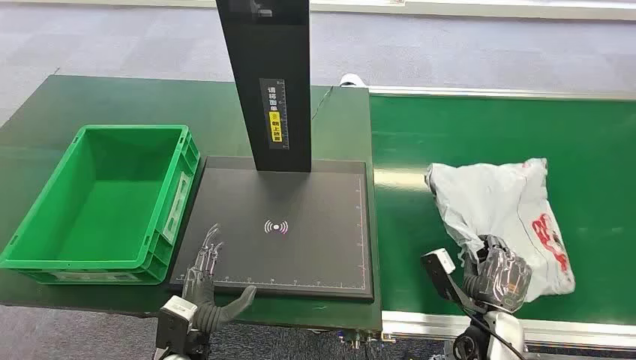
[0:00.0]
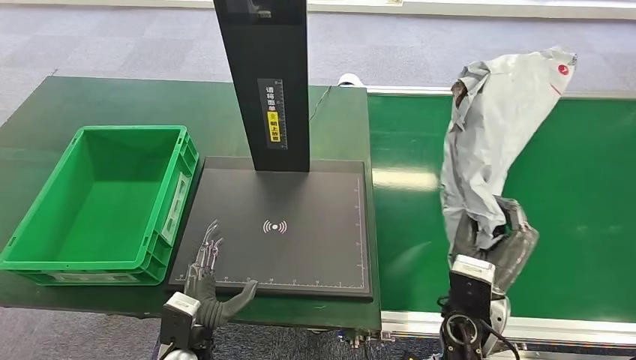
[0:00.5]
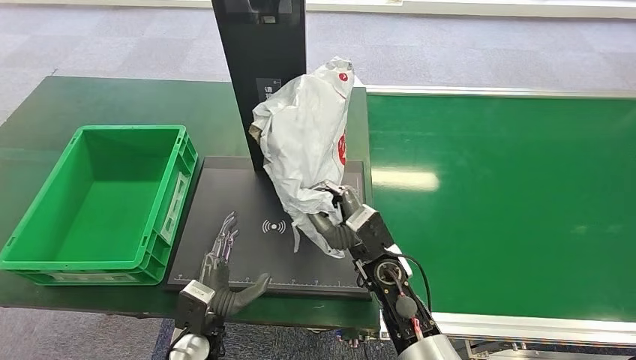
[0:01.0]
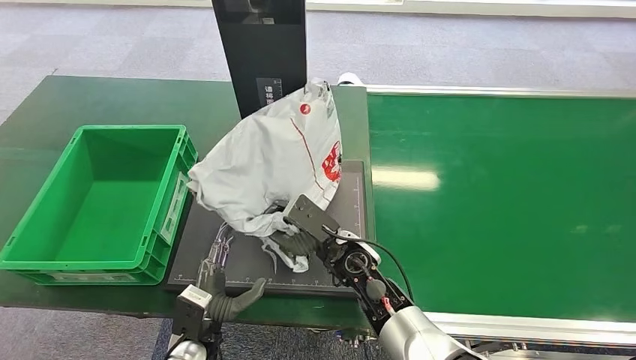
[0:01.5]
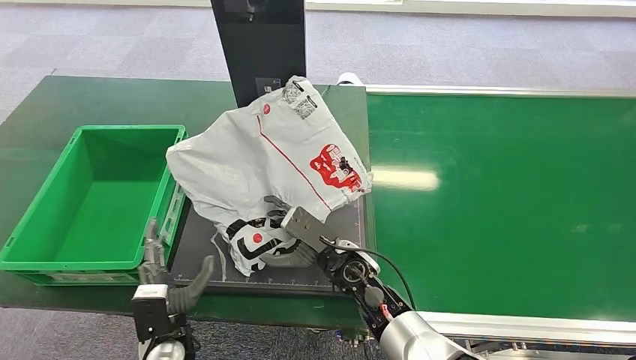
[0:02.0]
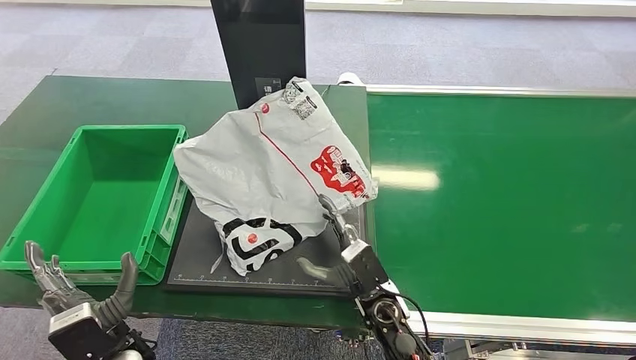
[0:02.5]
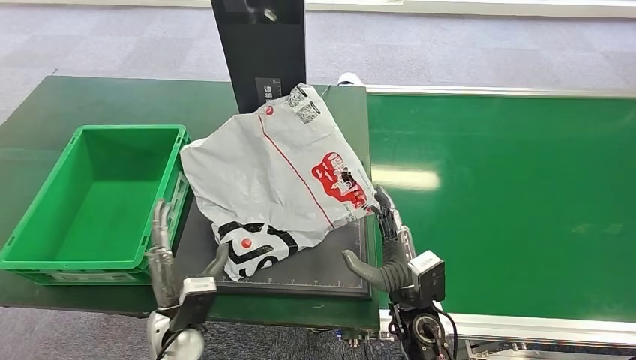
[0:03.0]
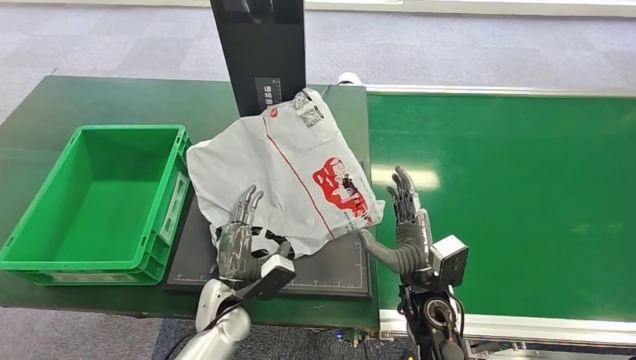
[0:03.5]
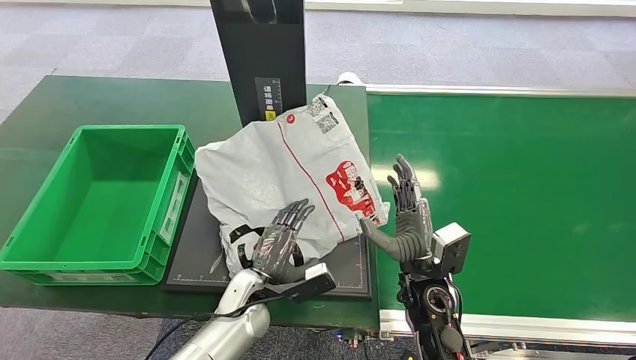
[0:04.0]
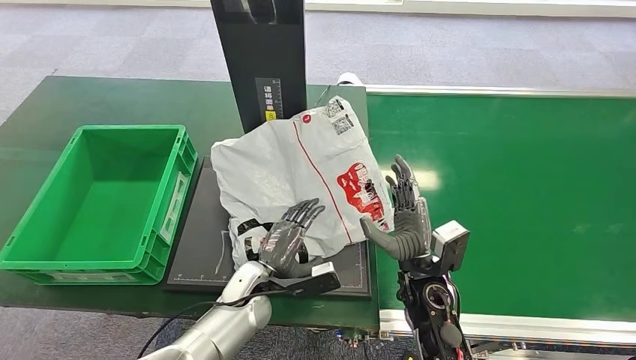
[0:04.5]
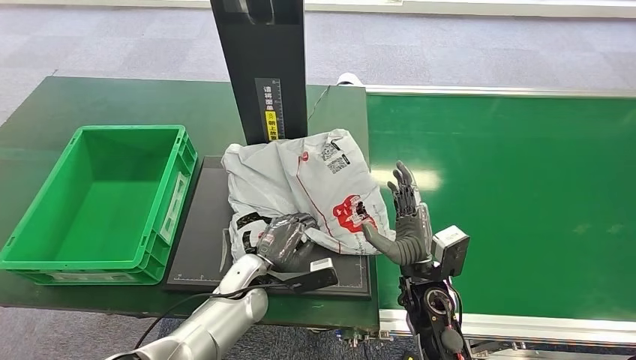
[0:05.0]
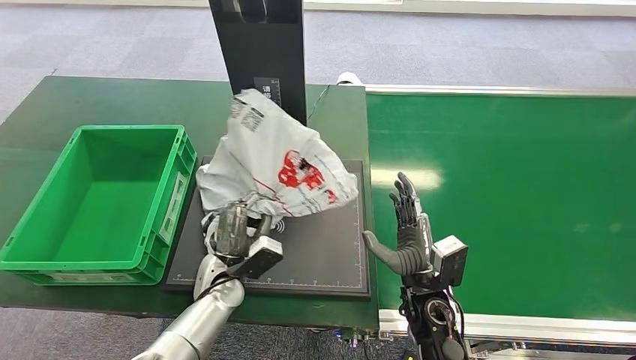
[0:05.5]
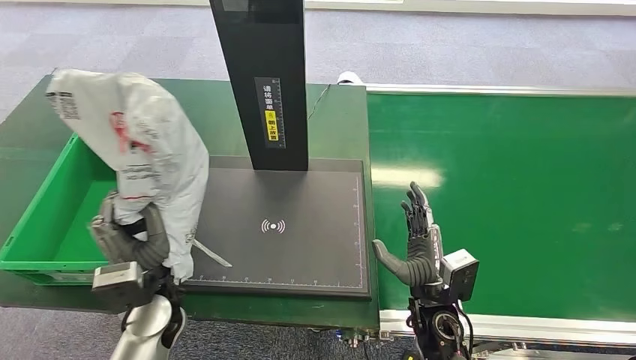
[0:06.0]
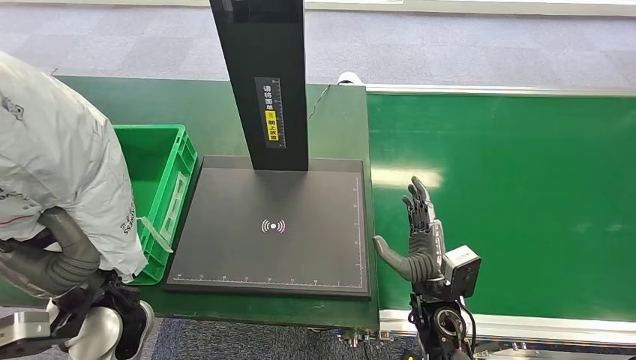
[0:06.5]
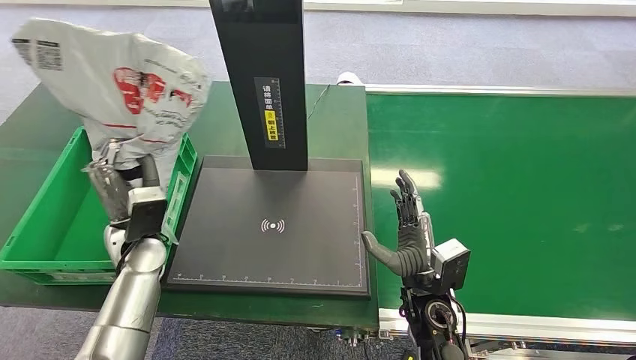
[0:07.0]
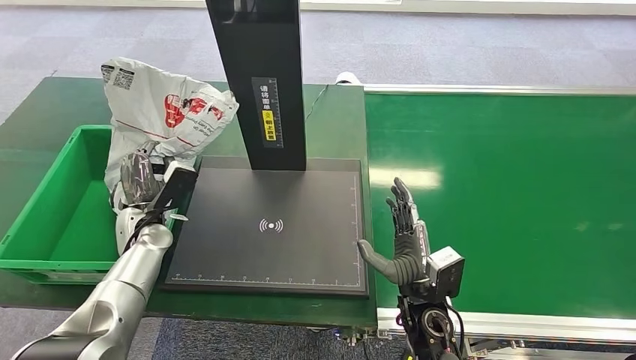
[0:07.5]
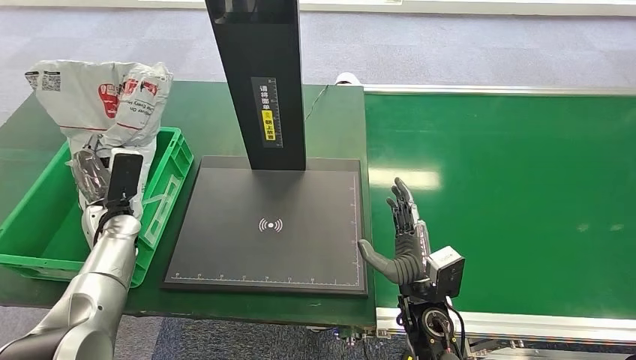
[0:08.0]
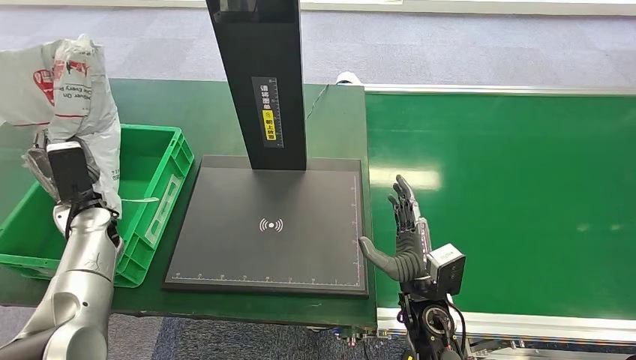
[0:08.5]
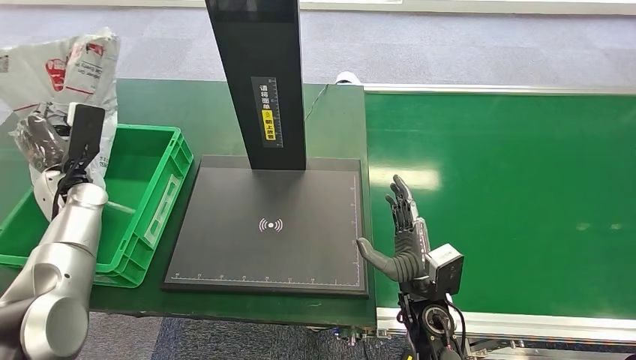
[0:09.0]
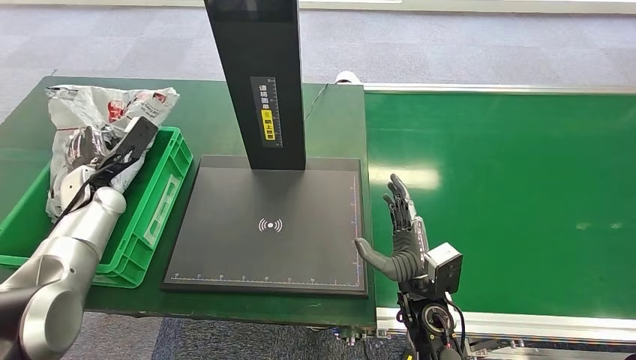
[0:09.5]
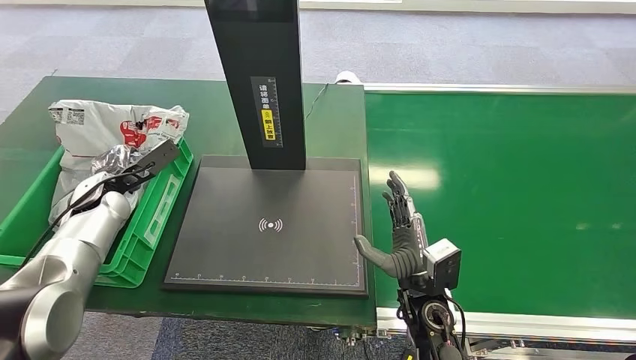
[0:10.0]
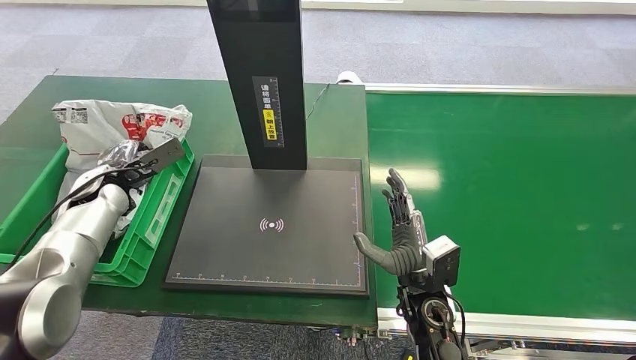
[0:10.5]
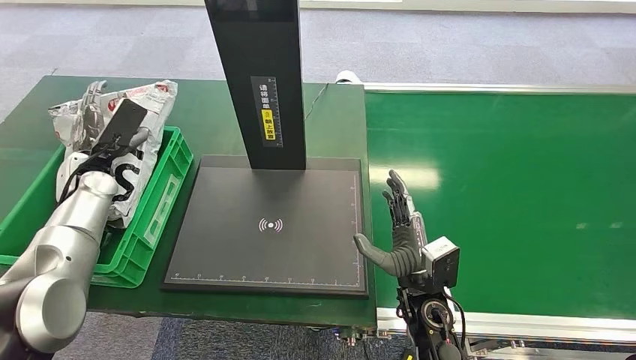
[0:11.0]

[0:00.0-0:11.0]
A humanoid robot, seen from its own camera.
0:02.0 to 0:03.5: The right hand shifts approximately 10 cm to the right and backward; the left hand travels to the right and forward by approximately 10 cm.
0:03.5 to 0:05.5: The left hand shifts by roughly 5 cm.
